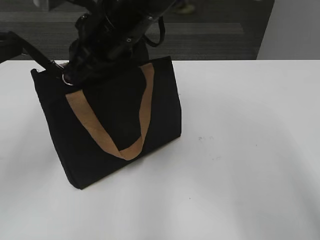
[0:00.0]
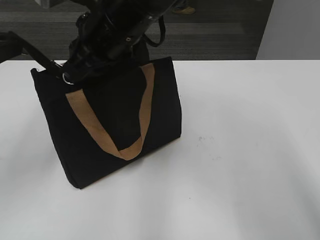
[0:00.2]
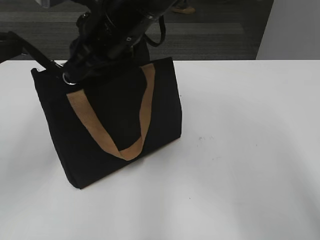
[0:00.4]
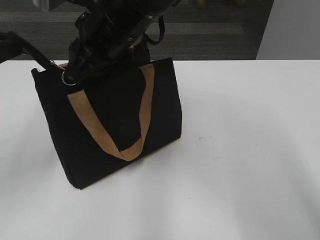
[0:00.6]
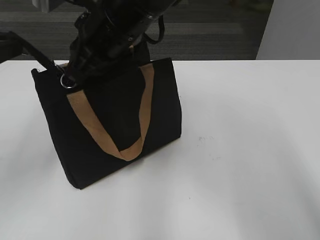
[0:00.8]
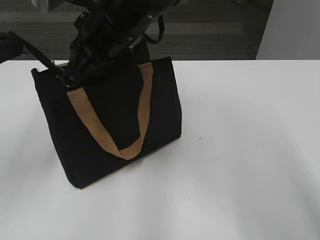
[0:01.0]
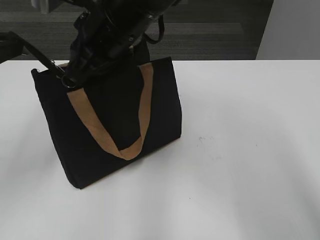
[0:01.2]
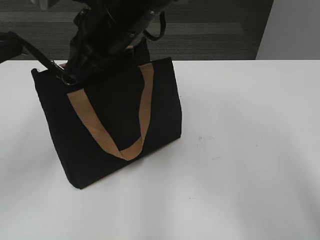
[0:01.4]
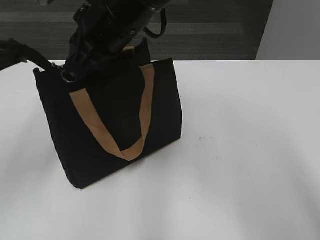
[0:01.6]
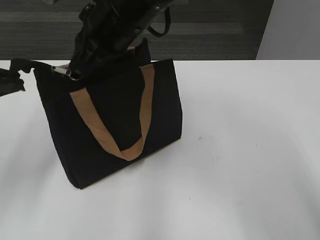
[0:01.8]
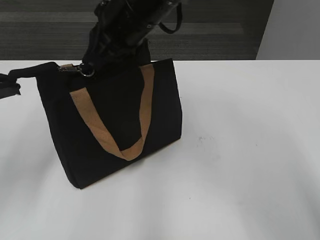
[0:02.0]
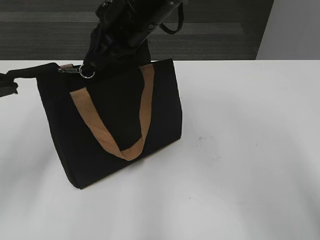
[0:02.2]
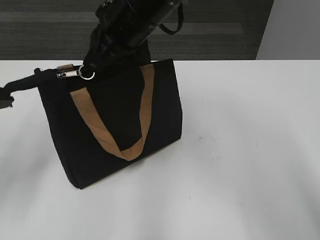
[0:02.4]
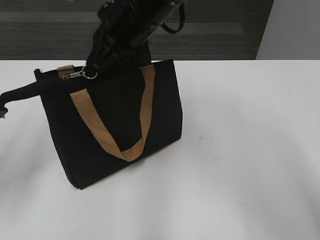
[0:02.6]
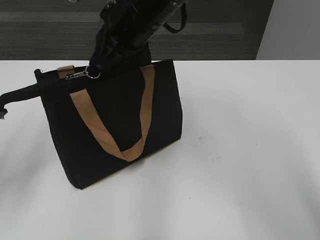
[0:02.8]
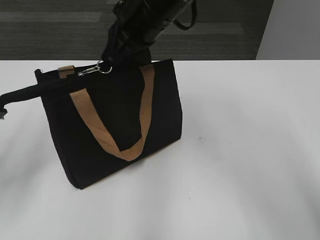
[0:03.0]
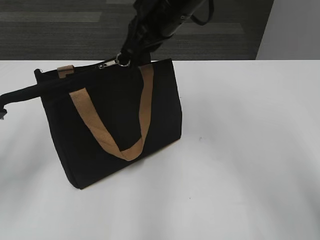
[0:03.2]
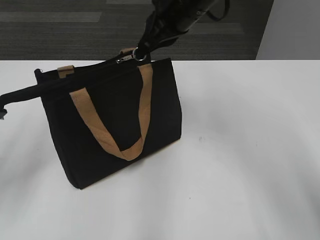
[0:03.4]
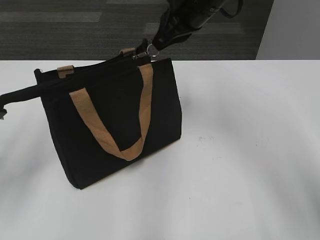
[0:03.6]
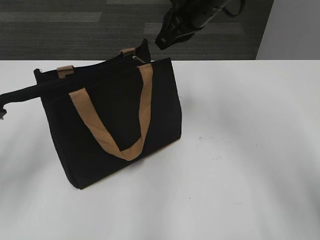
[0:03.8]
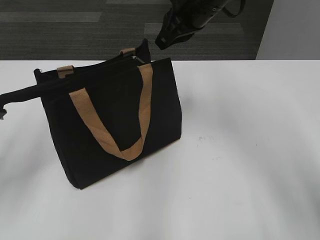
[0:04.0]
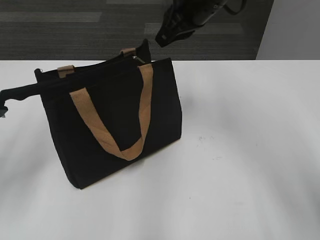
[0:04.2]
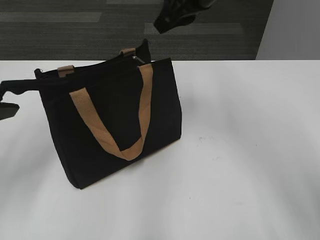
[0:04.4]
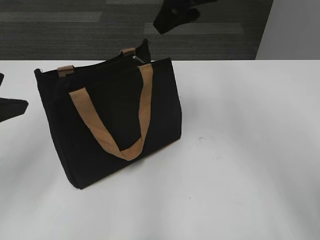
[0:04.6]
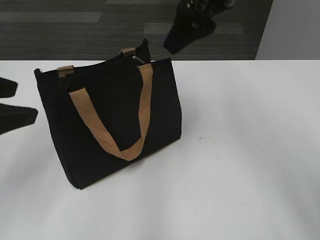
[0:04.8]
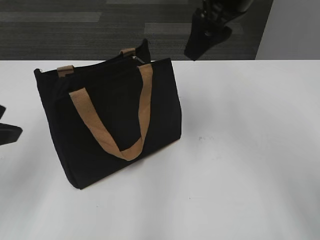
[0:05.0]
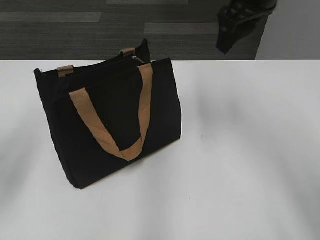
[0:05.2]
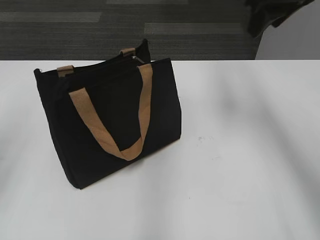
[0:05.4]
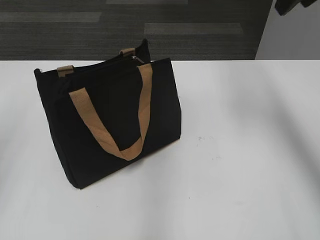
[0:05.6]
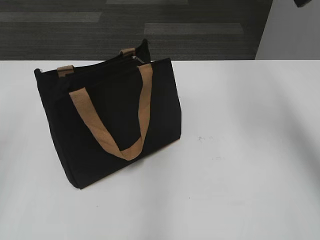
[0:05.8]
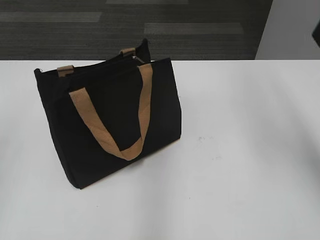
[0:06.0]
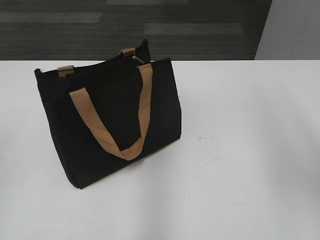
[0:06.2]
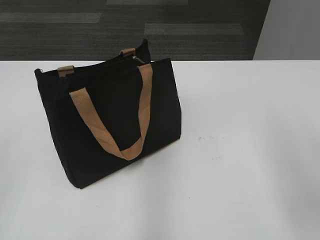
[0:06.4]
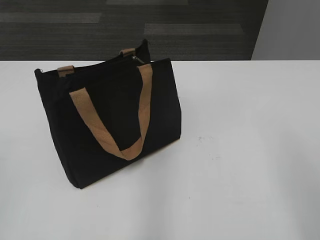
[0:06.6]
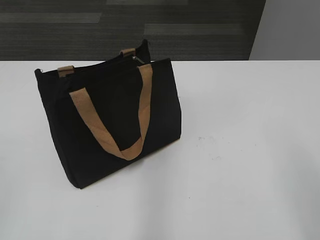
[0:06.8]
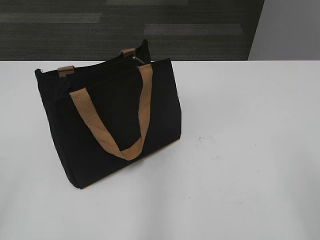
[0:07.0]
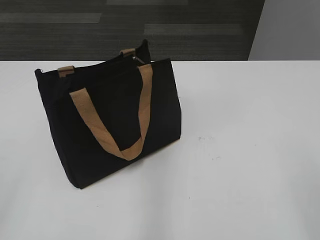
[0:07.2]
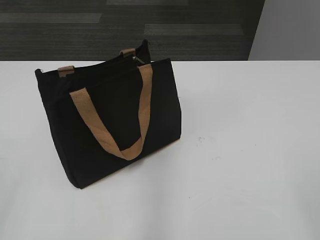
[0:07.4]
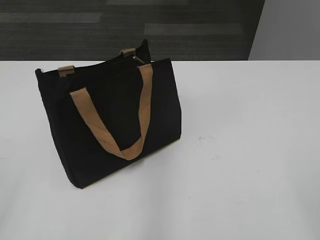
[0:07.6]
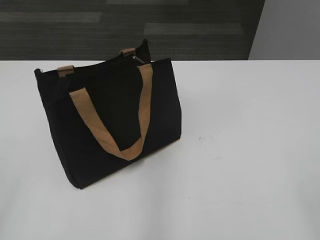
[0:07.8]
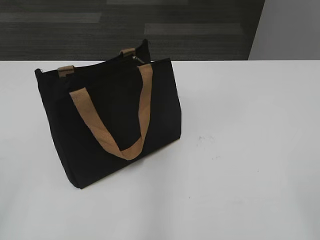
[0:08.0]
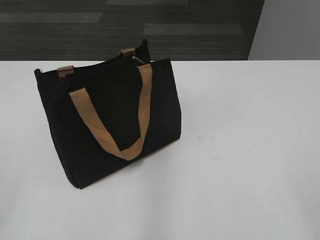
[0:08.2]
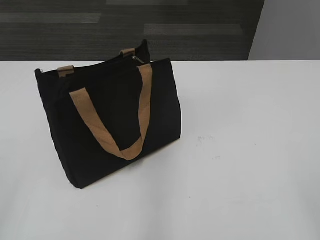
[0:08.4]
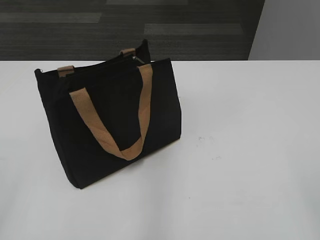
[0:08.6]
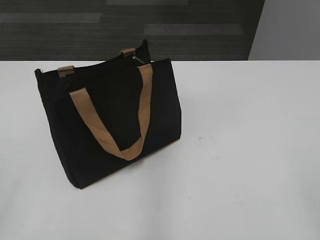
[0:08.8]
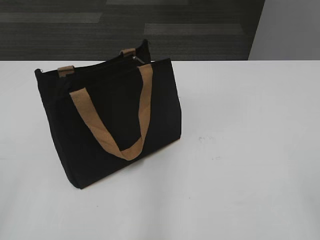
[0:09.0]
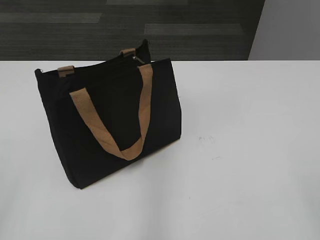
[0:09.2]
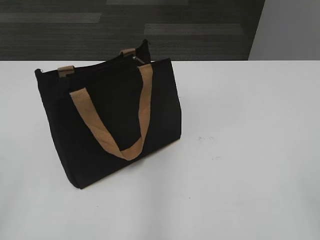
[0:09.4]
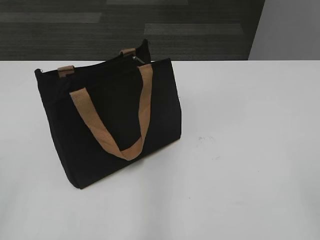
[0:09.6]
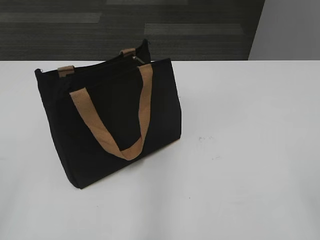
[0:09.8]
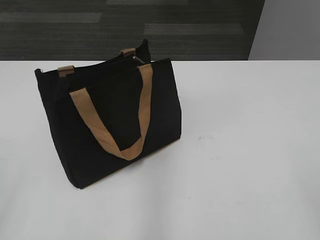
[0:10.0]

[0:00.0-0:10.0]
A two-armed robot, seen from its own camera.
Step, 0:00.0 to 0:04.0: Zip up the bag with your right hand.
Step, 0:04.2 to 0:04.8: Grab the zipper with your left hand.
0:00.0 to 0:01.4: The grippers stay close to where they were, moving slightly.
0:02.8 to 0:04.2: The right gripper travels to the right and forward by about 10 cm.
0:04.2 to 0:05.8: The right gripper is displaced to the right, upward and backward by approximately 20 cm, and opens; the left gripper shifts by roughly 5 cm, and opens its fingers.
0:05.8 to 0:07.2: The right gripper heads backward and downward, covering about 35 cm, while the left gripper is displaced backward by about 20 cm.
0:08.6 to 0:10.0: Neither gripper changes place.
